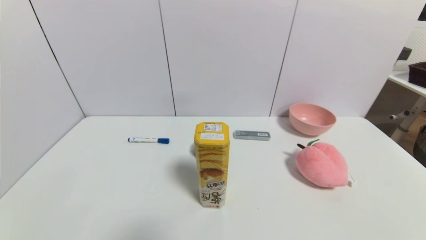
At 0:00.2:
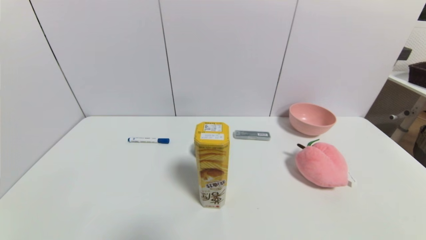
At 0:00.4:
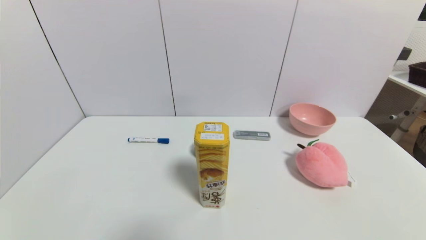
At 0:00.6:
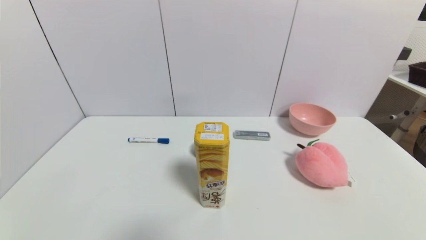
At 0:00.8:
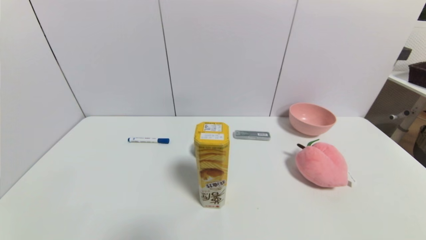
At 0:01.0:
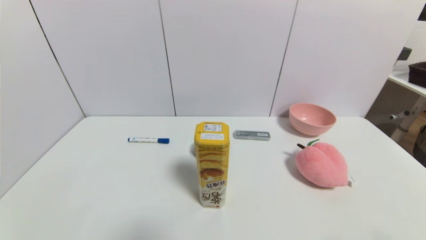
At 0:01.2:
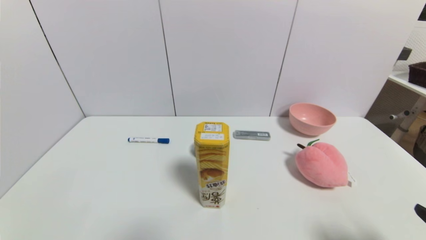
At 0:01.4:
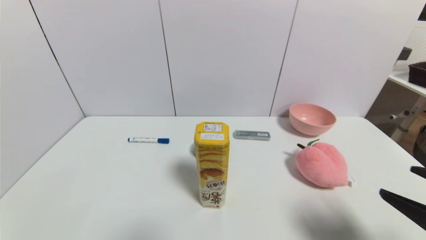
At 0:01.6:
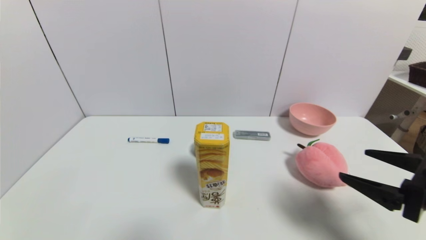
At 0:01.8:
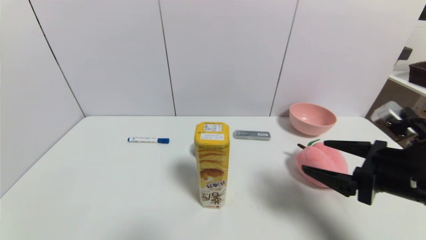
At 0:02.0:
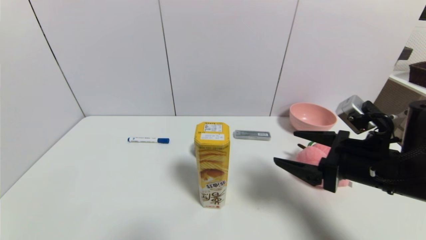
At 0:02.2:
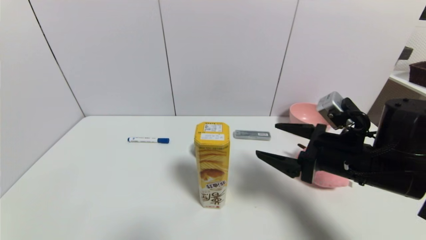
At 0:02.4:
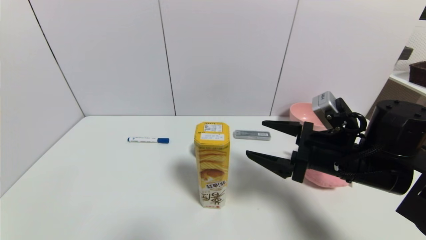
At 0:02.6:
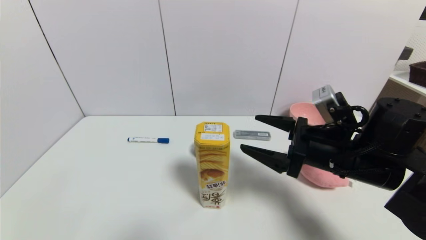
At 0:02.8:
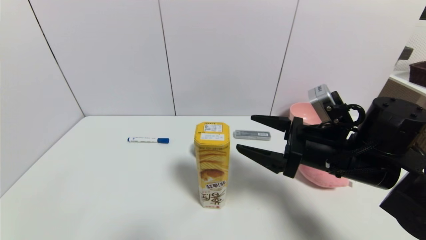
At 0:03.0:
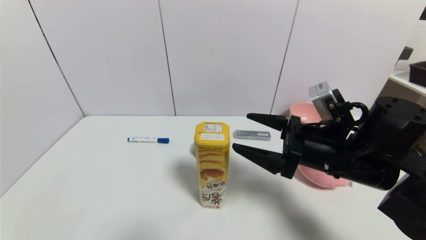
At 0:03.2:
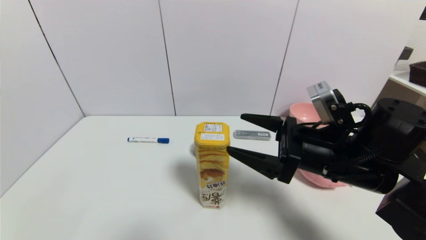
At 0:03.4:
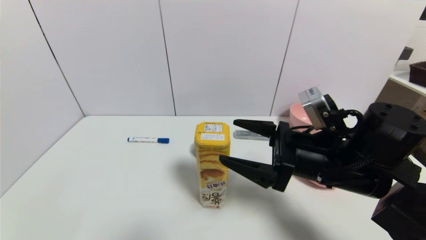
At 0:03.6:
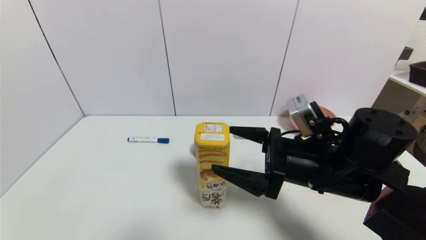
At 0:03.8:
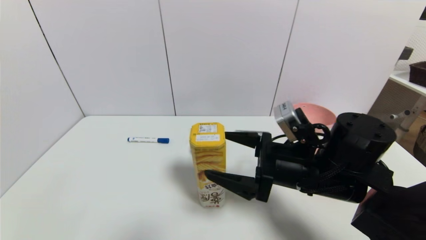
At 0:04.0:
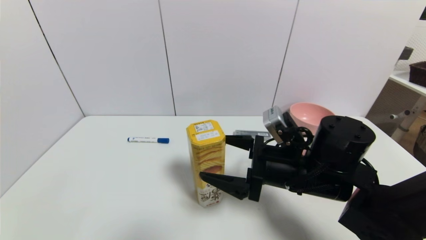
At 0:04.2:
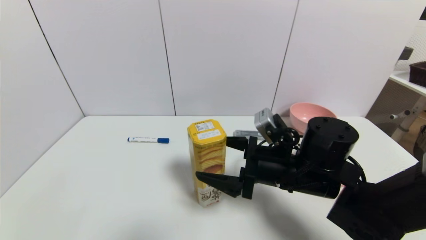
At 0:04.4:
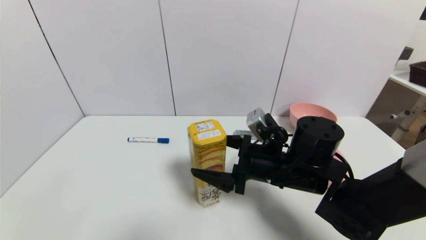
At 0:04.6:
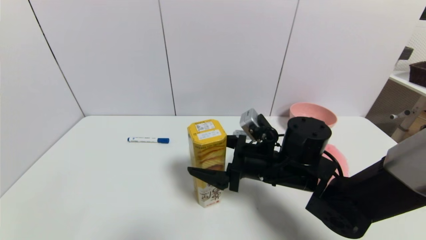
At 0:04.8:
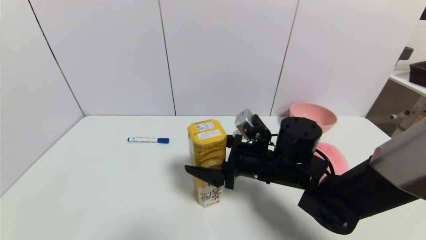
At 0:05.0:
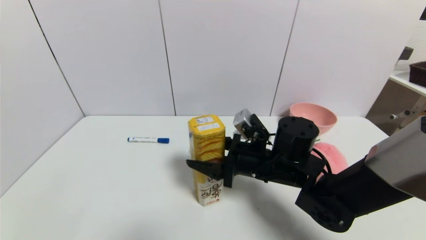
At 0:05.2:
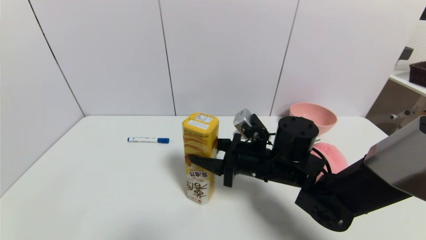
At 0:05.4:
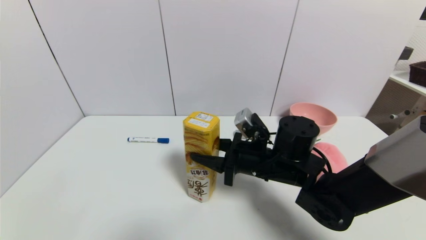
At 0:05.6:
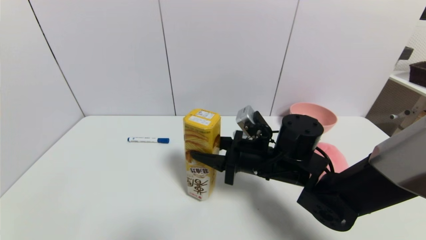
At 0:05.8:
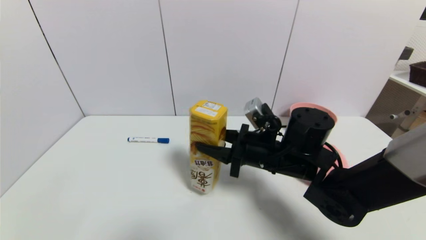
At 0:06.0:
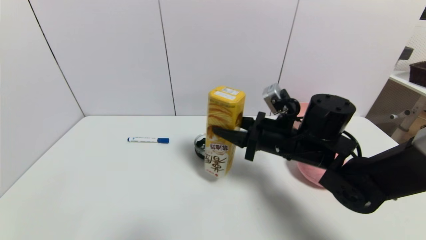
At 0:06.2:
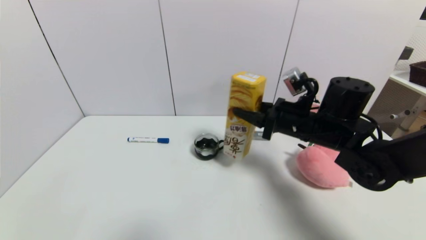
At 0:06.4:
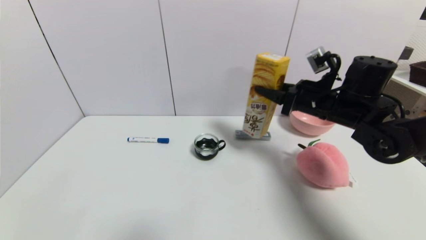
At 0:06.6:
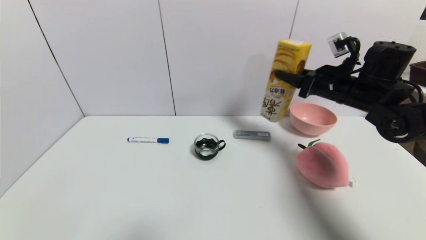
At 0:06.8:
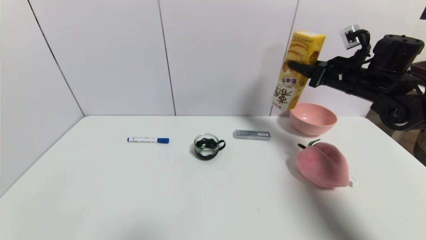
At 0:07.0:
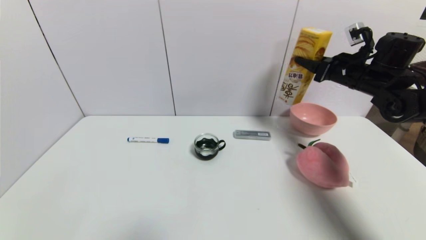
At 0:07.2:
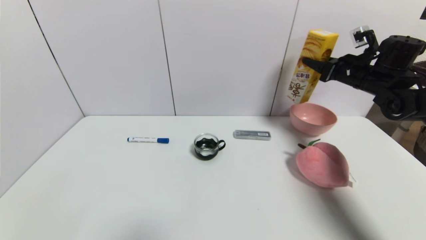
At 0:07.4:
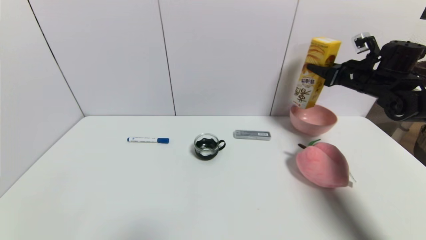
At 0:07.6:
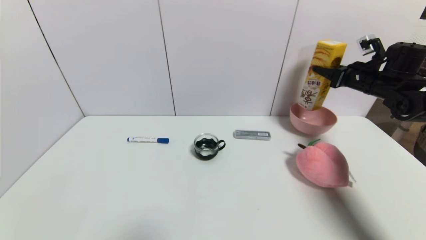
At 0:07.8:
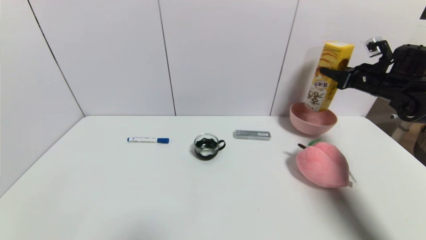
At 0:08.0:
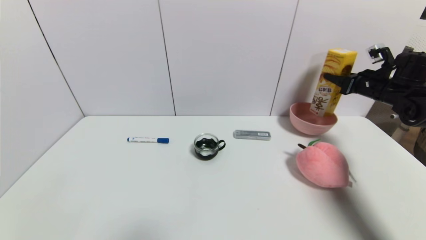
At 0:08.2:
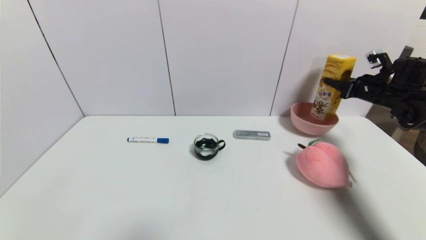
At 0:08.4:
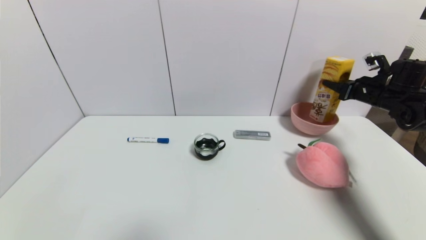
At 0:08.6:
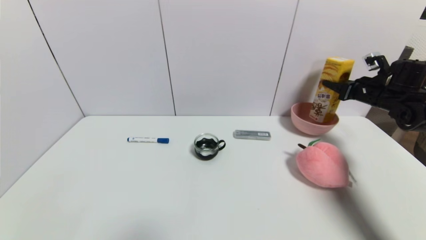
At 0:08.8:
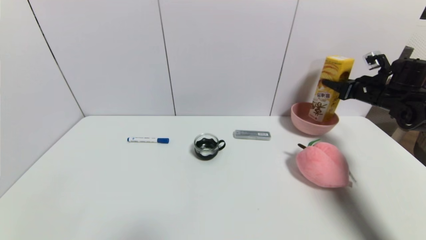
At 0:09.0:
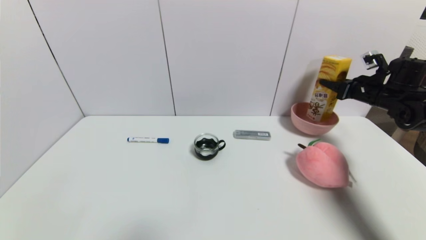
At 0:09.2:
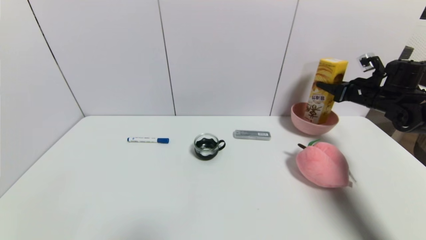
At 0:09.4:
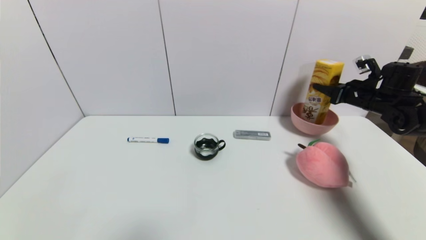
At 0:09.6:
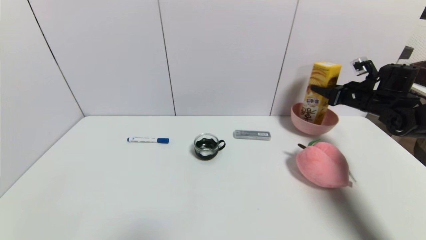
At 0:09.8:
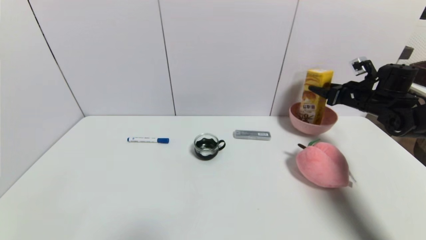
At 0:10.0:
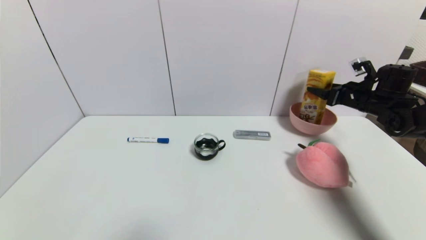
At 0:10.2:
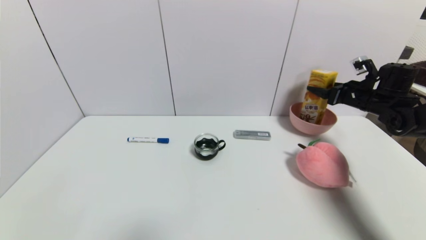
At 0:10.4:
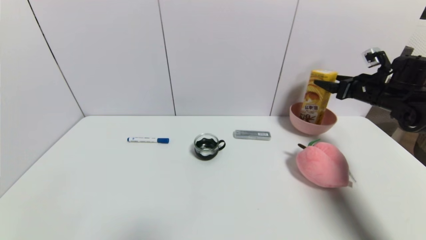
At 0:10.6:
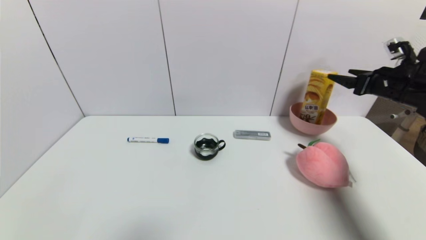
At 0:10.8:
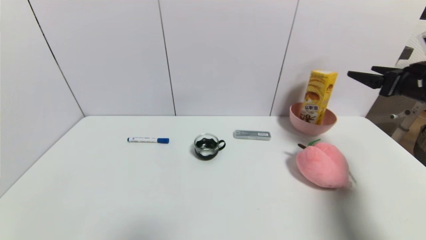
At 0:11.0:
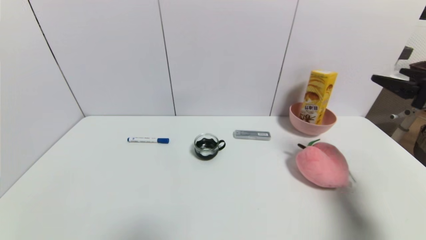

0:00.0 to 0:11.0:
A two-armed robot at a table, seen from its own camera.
Task of the whole recording: use a gripper to pick the target object and place on the pink bowl.
Step, 0:00.0 to 0:05.2: Grasp the potato chips with the right gripper.
Step, 0:05.4 to 0:10.2: Place the potato chips on the pink bowl with the right gripper.
0:00.0 to 0:01.6: The right gripper goes approximately 20 cm forward and upward.
0:01.6 to 0:03.2: The right gripper goes about 15 cm to the left and forward.
0:03.2 to 0:04.8: The right gripper moves to the left and downward, about 10 cm.
0:04.8 to 0:06.2: The right gripper shifts roughly 10 cm to the right and upward, and closes.
0:06.2 to 0:07.8: The right gripper goes approximately 25 cm to the right and forward.
0:07.8 to 0:09.4: The grippers stay close to where they were, moving slightly.
0:09.4 to 0:11.0: The right gripper heads backward, covering some 20 cm, and opens.

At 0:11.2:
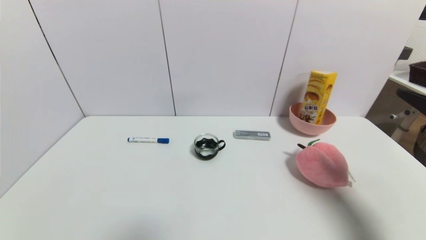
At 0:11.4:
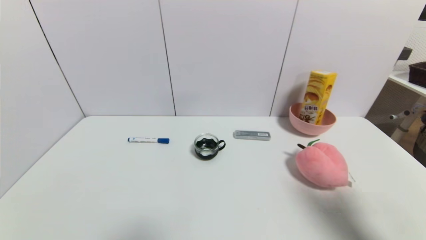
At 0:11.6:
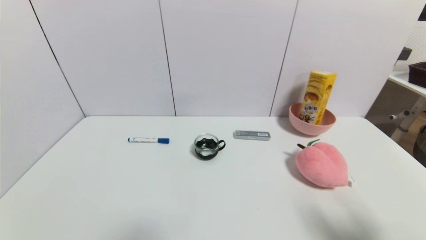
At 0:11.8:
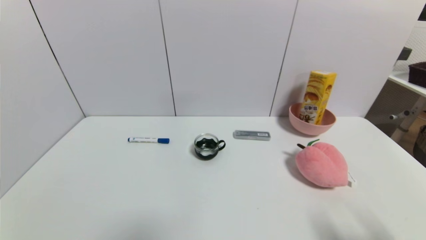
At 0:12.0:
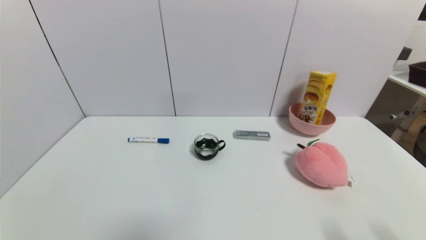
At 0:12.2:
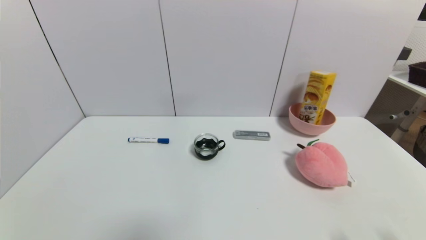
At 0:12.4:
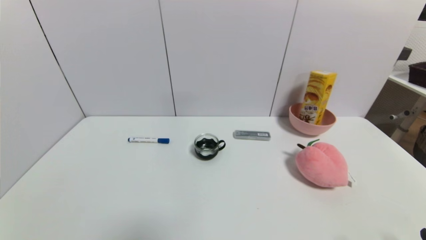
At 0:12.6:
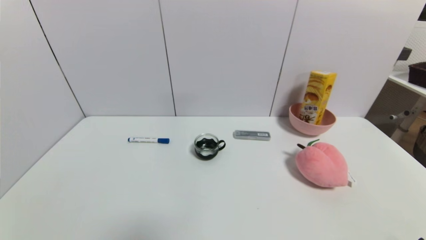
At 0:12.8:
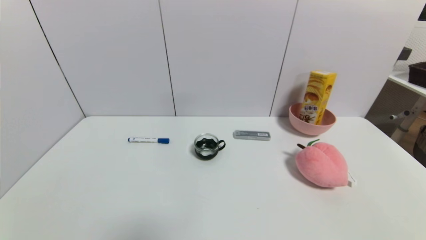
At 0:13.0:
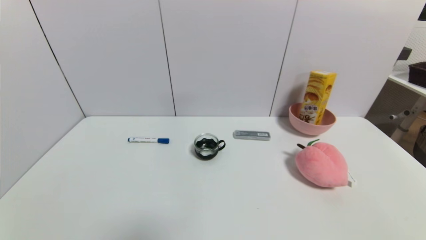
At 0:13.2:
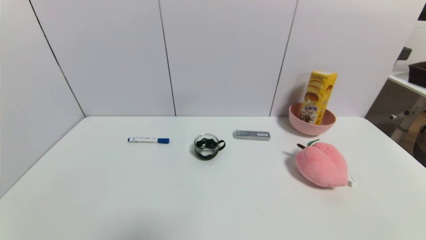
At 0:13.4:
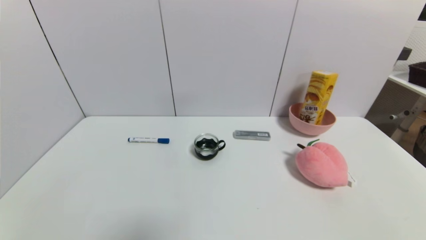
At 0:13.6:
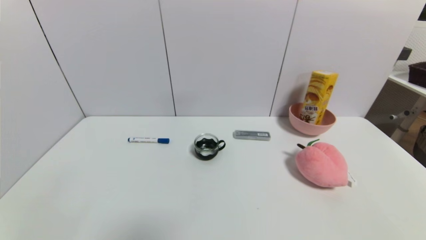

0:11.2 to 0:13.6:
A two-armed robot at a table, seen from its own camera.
Task of the whole recording: use a gripper to pick the target object and place on the pink bowl.
0:11.2 to 0:12.4: The right gripper is displaced backward and downward by some 20 cm.
